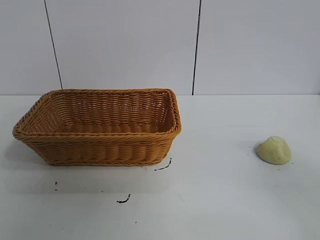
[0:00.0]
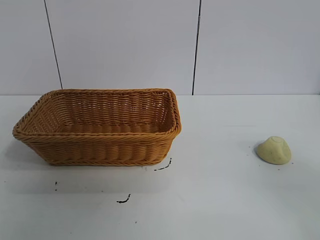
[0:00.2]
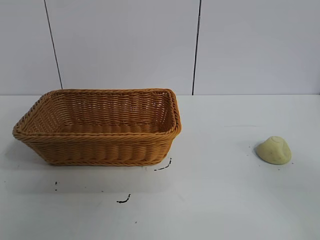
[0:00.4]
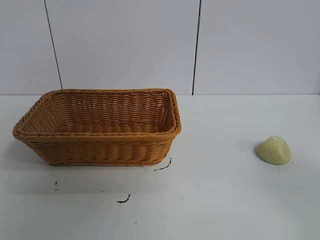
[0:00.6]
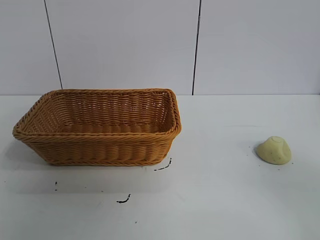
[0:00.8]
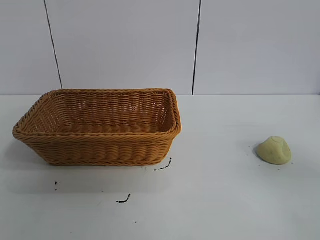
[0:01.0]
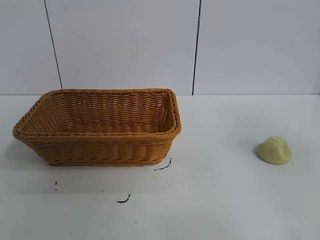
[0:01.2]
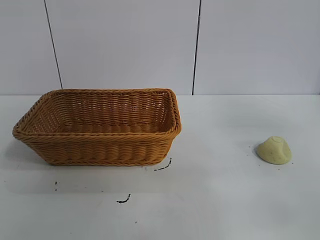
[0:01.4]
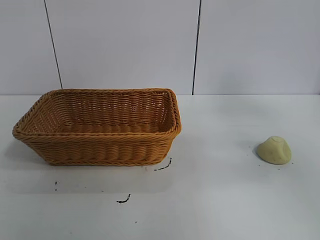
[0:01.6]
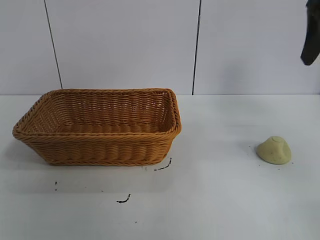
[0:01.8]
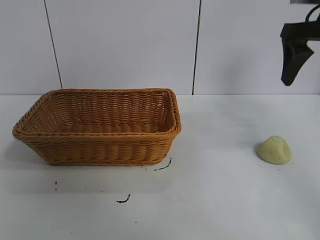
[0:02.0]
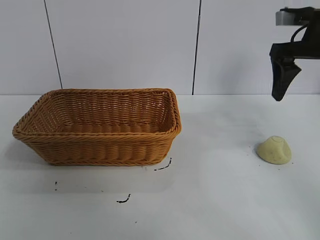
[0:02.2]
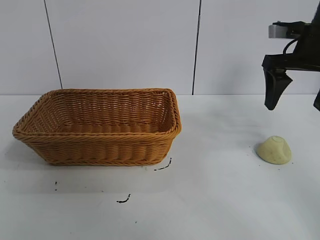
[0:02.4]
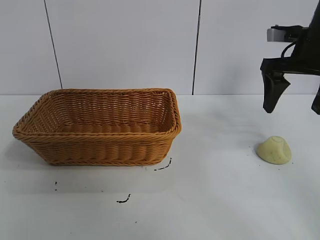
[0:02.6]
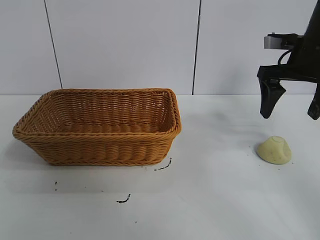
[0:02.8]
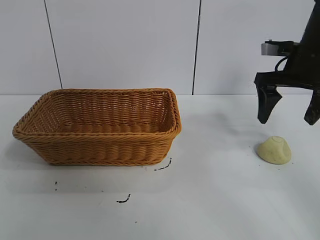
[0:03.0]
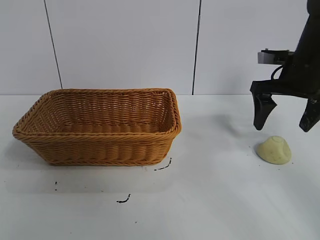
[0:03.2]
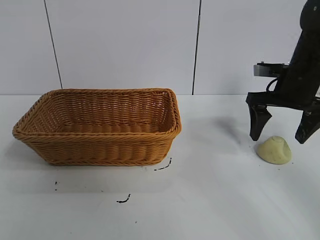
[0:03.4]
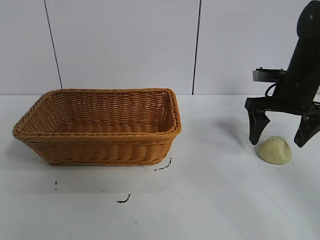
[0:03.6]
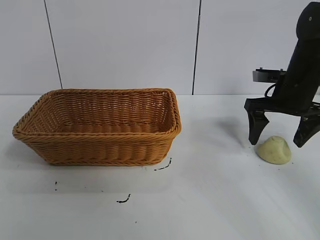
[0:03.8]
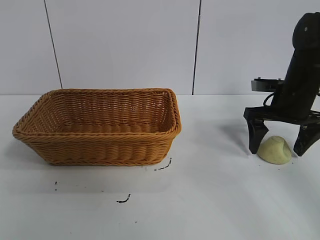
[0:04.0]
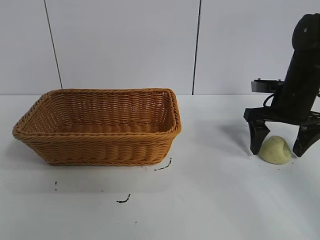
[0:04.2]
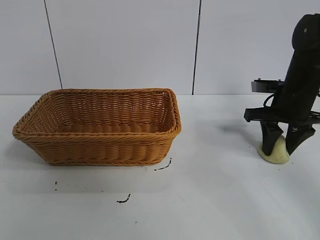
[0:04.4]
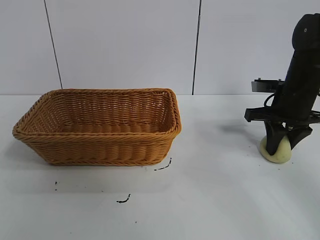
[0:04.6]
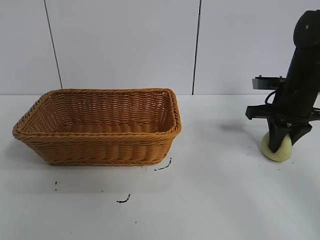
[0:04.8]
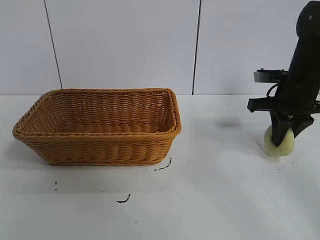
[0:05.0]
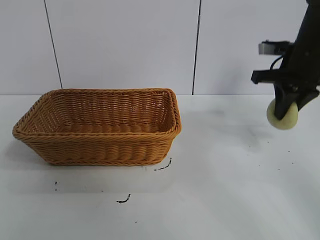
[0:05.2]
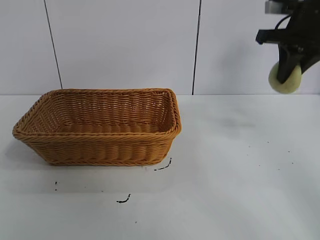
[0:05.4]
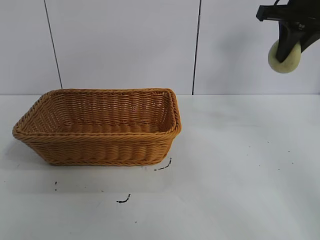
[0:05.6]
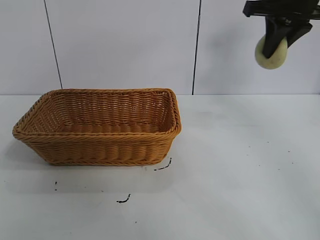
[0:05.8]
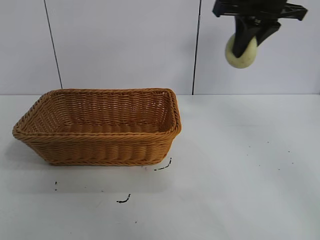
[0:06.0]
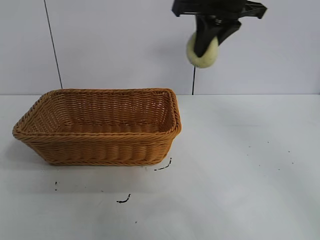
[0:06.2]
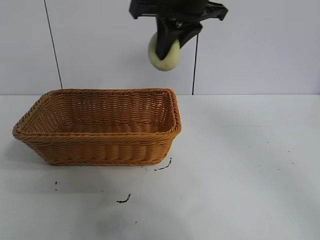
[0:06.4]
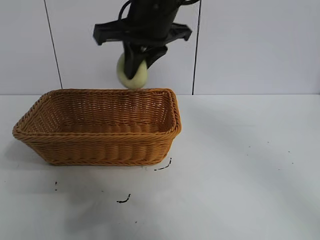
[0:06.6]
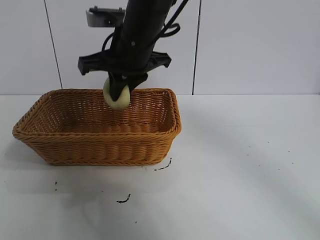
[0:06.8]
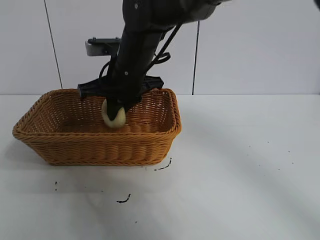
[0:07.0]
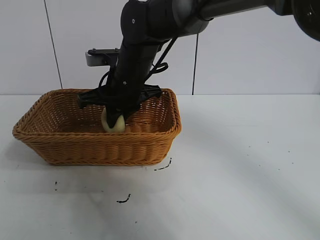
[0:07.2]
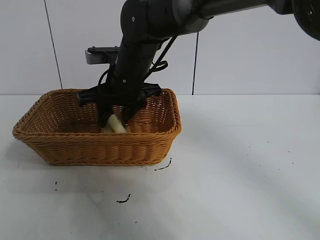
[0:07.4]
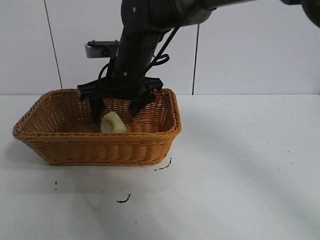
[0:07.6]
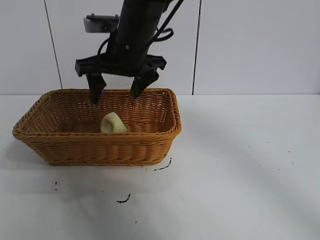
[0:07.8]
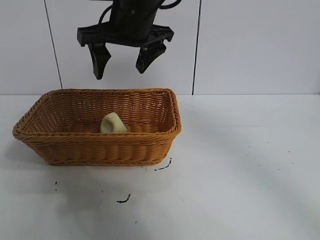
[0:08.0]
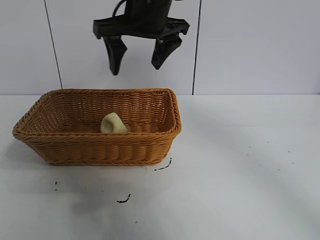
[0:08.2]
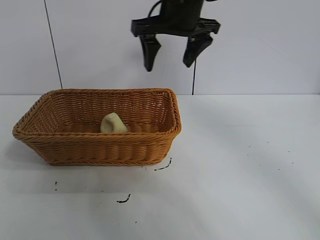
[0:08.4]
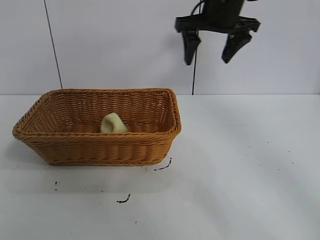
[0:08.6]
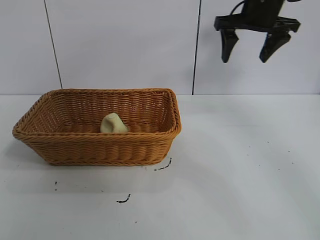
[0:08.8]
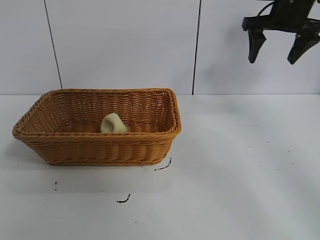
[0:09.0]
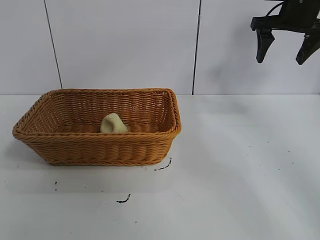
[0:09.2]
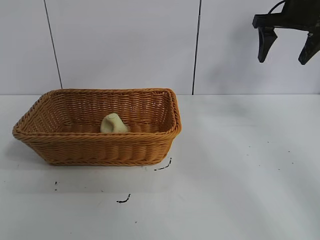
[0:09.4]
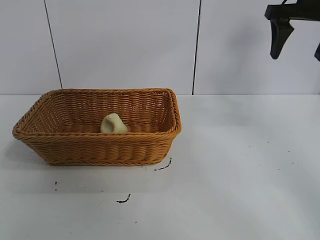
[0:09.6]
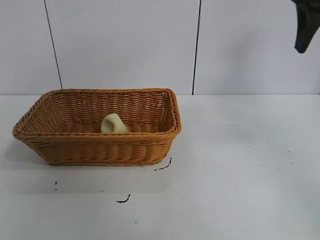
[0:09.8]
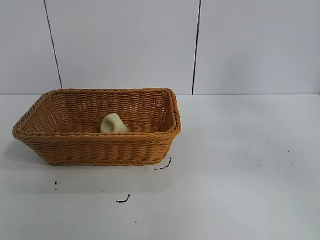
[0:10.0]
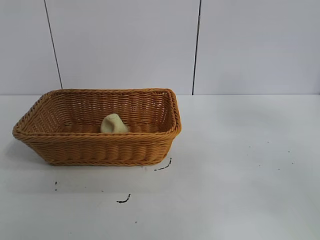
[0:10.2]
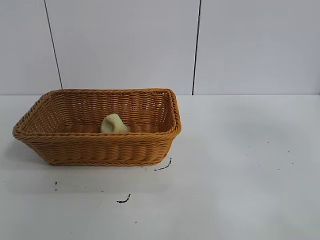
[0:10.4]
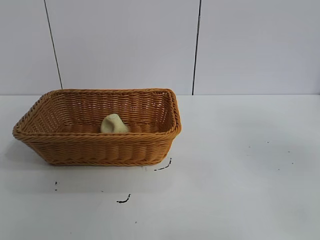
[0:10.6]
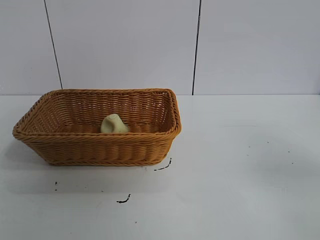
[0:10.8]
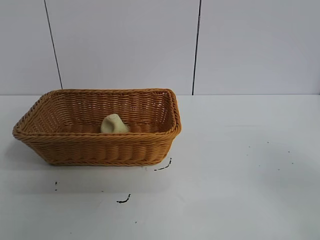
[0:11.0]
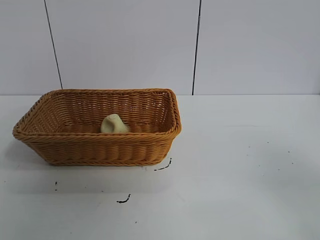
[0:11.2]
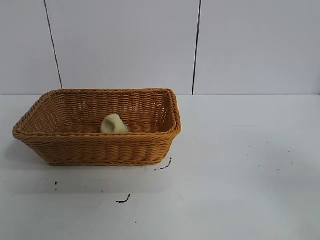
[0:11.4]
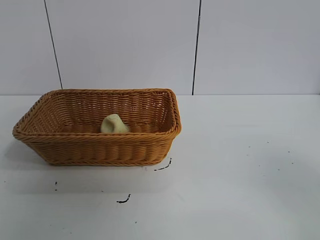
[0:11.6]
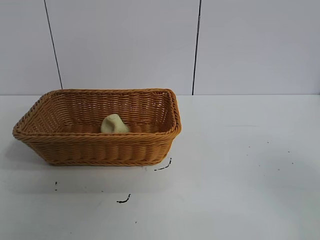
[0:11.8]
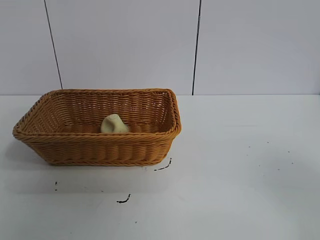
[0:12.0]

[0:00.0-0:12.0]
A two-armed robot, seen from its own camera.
Task of the whole recording: pick up the egg yolk pastry and put it into the basket.
Step, 0:01.0 to 0:04.6: Grasp egg yolk pastry with right gripper.
Step, 0:04.8 to 0:07.6: Place the egg yolk pastry in the basket with right gripper.
